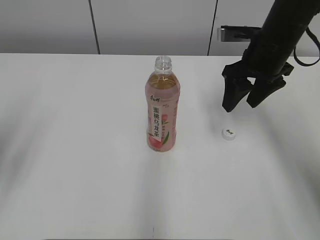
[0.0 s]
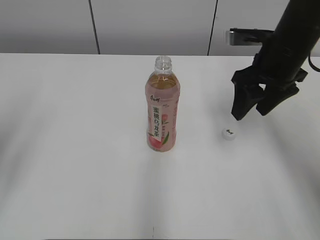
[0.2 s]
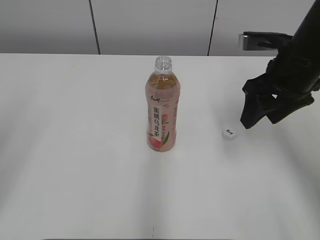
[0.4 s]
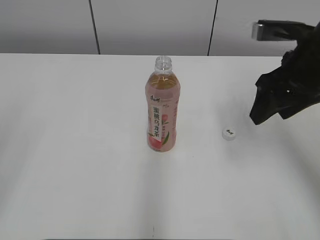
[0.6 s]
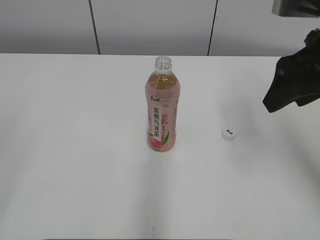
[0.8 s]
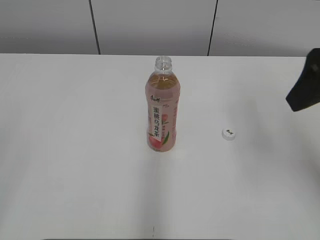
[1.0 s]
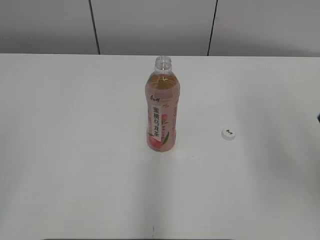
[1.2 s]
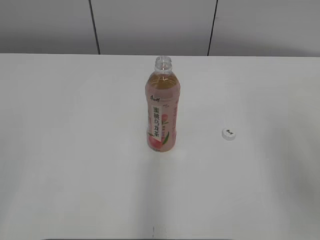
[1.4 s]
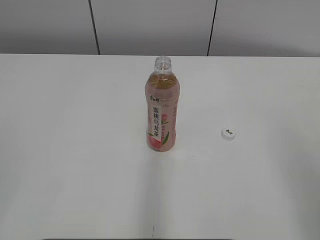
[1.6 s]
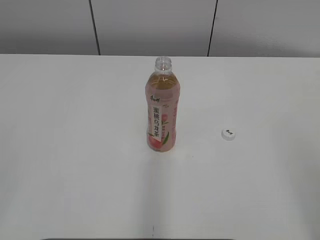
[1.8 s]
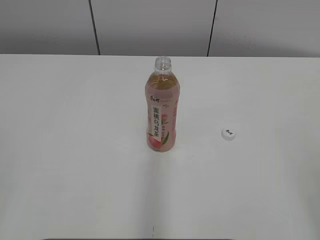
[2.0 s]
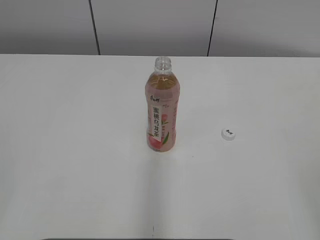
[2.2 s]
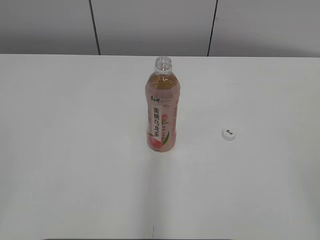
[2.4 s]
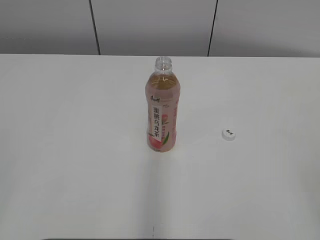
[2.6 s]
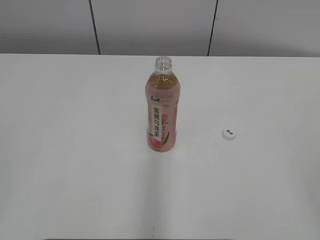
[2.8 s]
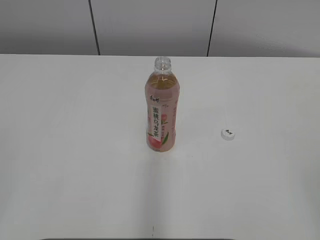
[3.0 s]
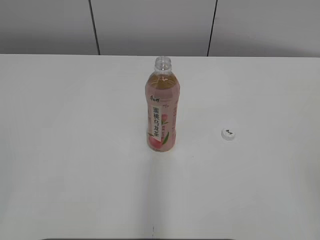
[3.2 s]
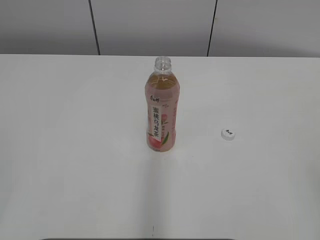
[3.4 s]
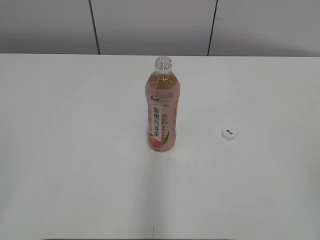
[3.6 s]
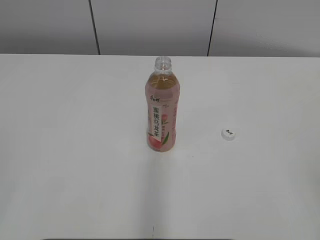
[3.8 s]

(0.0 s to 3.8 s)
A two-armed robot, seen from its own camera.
0.0 s - 1.2 s: The right gripper travels backward and upward by roughly 20 cm.
1.2 s - 2.6 s: The right gripper heads backward, covering some 20 cm.

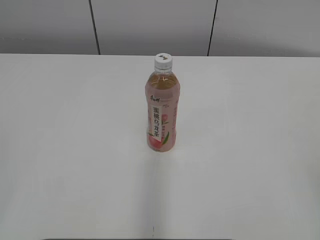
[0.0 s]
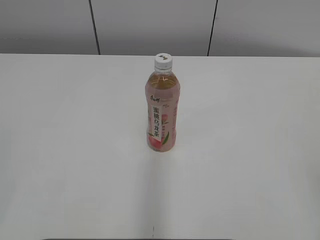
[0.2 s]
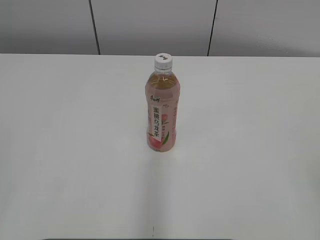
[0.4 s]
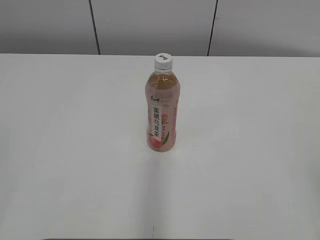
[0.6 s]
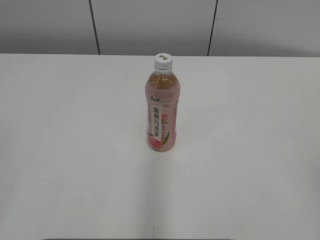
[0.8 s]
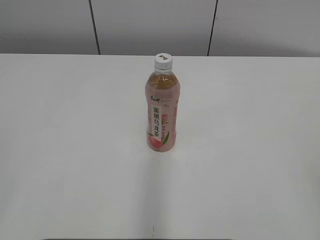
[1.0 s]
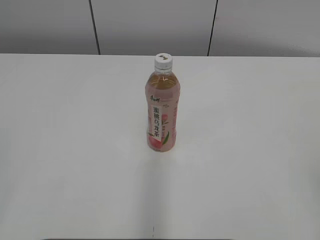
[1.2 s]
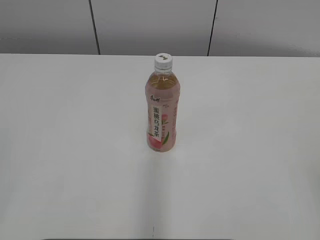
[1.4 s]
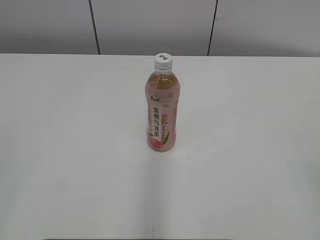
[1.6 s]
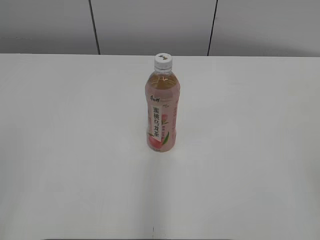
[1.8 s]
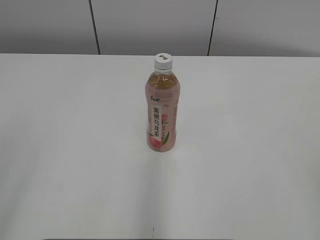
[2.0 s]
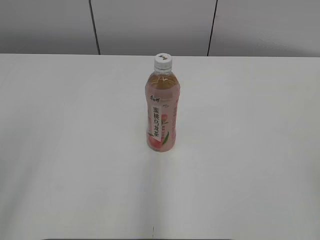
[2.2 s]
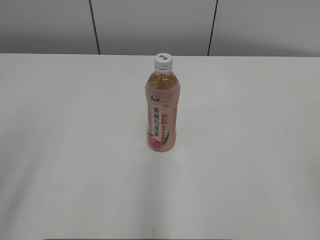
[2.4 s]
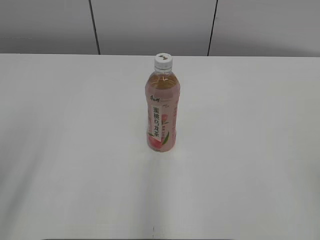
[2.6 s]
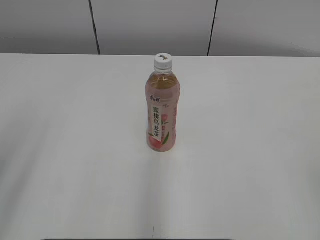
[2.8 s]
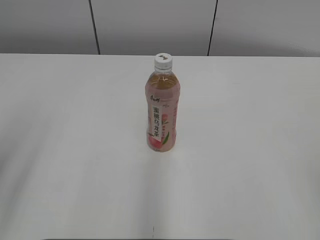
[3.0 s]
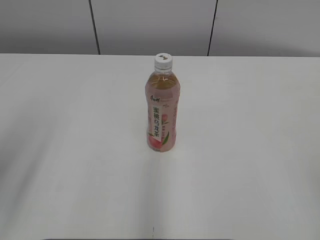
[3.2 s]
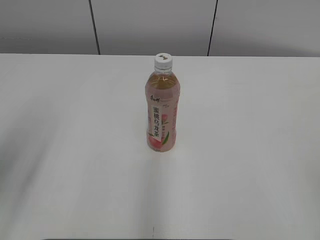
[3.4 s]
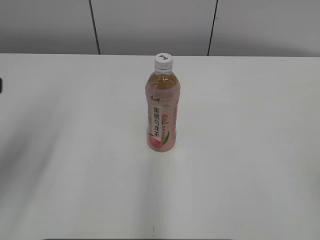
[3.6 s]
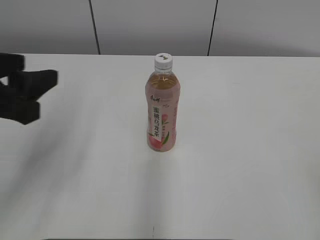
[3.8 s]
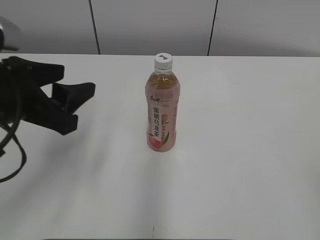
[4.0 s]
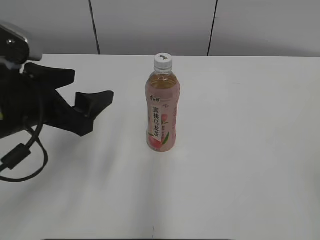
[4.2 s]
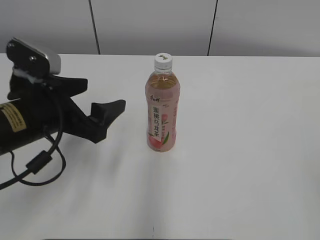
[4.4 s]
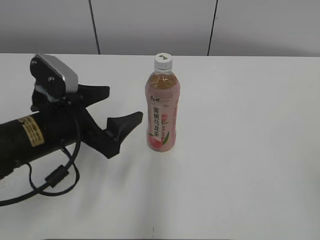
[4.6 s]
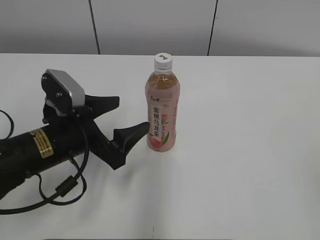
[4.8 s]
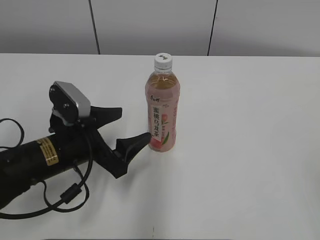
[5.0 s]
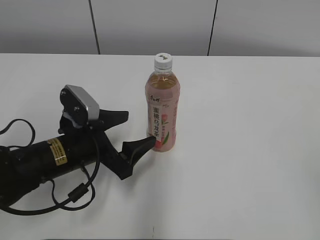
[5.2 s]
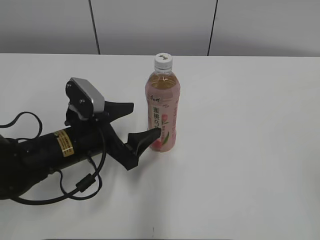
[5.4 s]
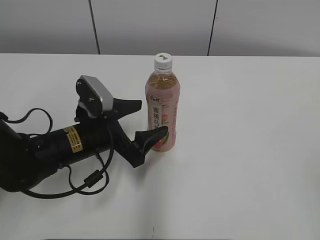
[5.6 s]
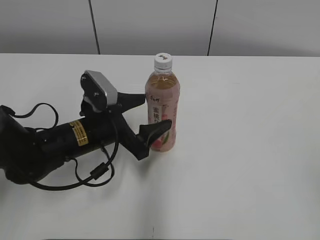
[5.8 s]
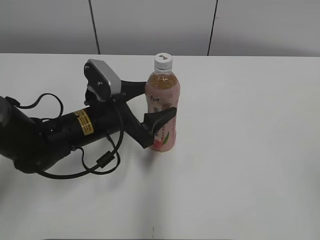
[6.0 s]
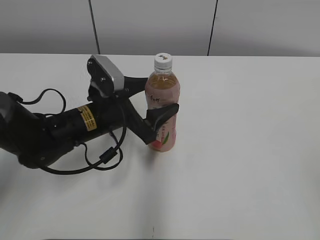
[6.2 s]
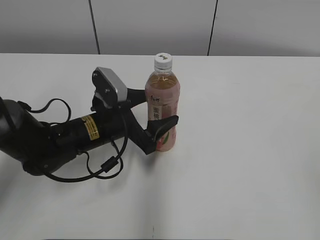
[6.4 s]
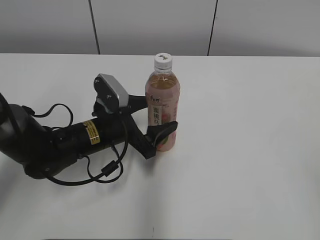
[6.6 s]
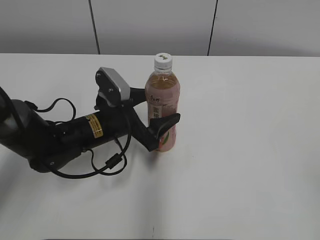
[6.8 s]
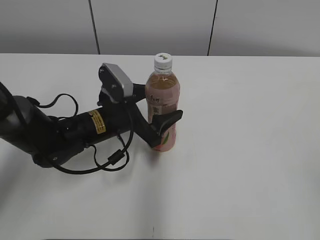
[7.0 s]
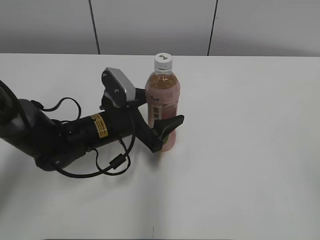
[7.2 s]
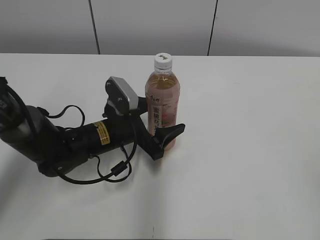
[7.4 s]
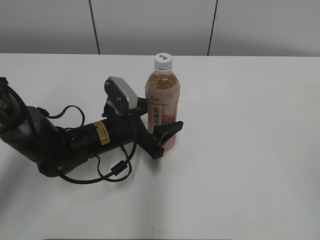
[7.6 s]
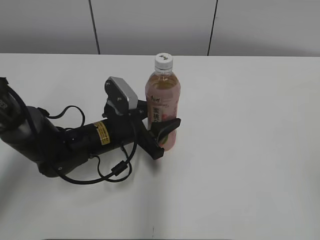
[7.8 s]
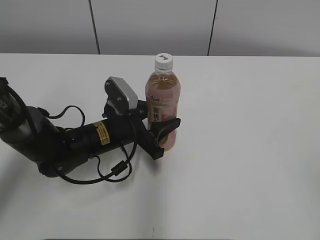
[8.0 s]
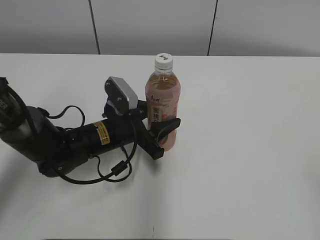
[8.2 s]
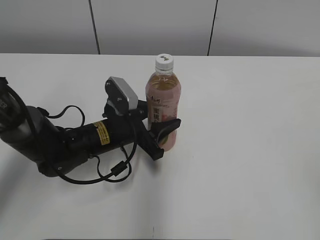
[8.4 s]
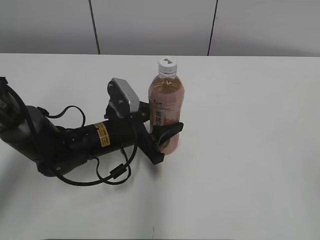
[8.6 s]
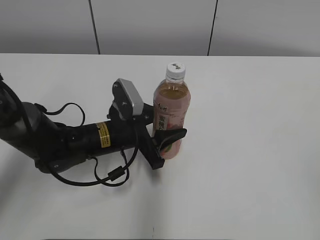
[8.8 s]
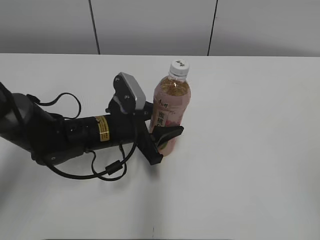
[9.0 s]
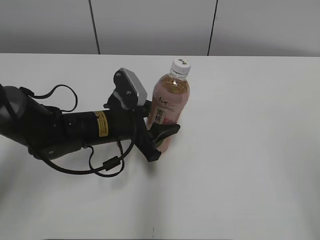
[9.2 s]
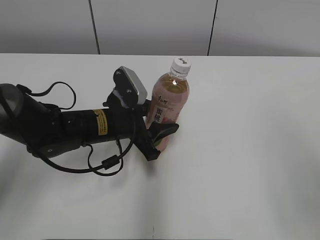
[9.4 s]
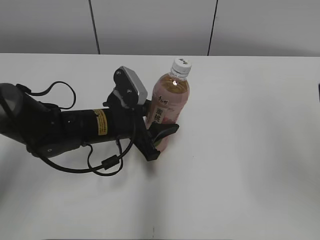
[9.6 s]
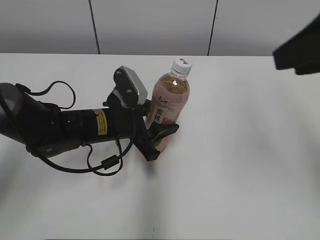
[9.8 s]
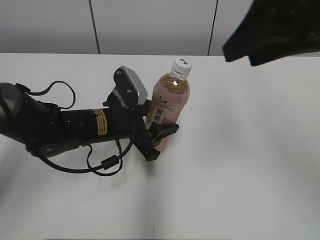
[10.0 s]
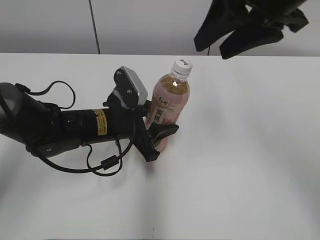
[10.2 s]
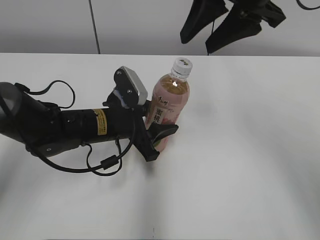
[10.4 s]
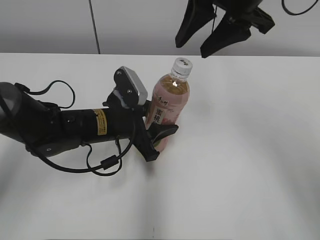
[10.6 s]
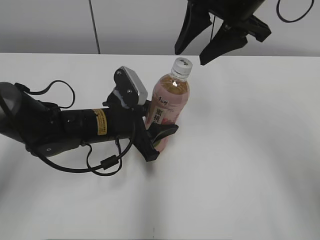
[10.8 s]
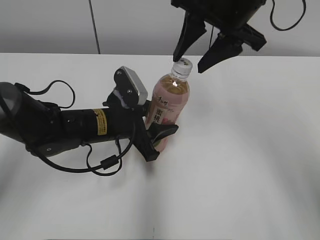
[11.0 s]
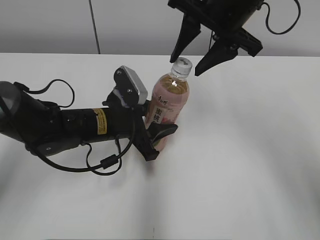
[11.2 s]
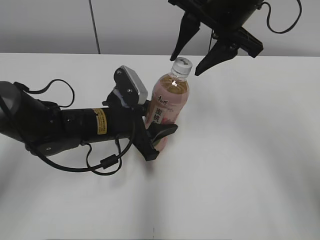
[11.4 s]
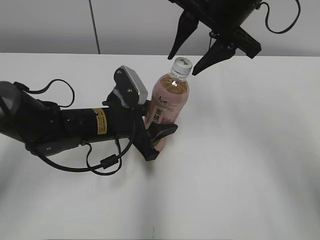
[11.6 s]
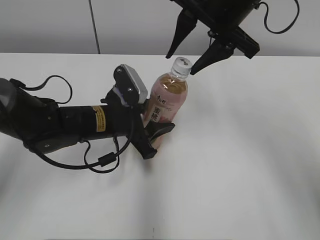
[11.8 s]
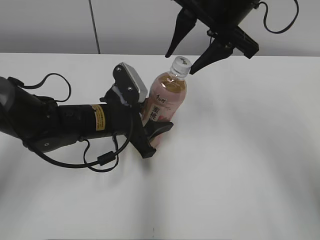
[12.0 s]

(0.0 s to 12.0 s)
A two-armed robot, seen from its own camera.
Step, 0.0 s - 8.6 s: Grab the Peach Oolong Tea with the left hand.
3.0 s - 4.4 s: The left gripper is displaced forward, to the right and downward by about 20 cm, and opens its fingers.
4.4 s - 6.0 s: The left gripper is displaced downward, to the right and forward by approximately 10 cm.
6.0 s - 7.6 s: The grippers make only small movements.
7.6 s - 9.0 s: The left gripper closes up.
9.0 s - 10.4 s: The right gripper is displaced forward and to the left by some 35 cm.
10.4 s - 12.0 s: The right gripper ends up about 5 cm from where it was.

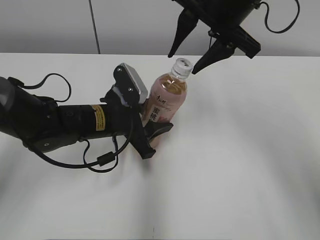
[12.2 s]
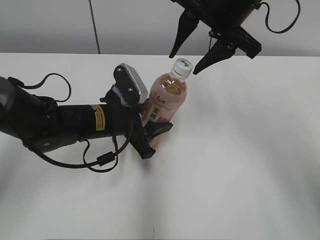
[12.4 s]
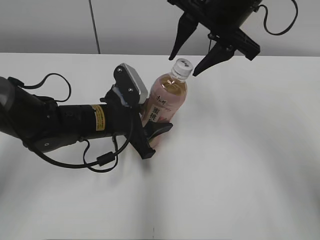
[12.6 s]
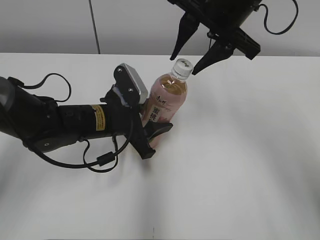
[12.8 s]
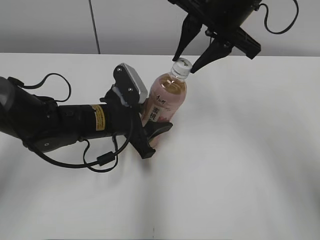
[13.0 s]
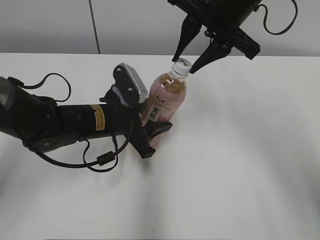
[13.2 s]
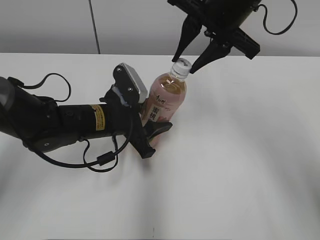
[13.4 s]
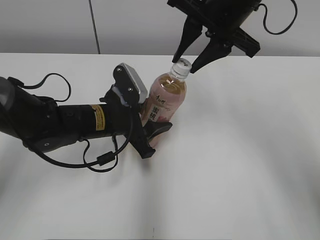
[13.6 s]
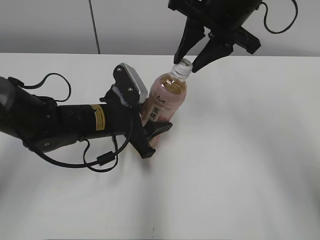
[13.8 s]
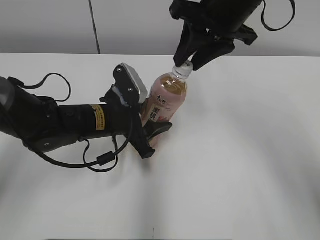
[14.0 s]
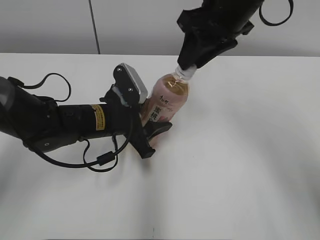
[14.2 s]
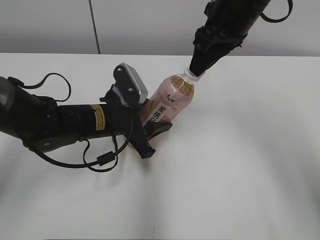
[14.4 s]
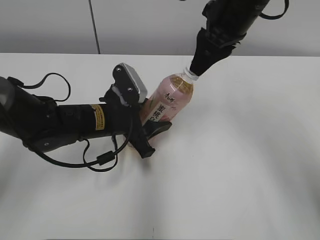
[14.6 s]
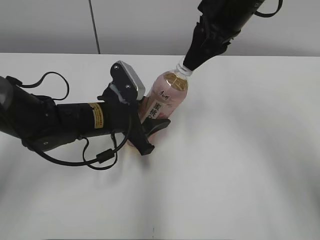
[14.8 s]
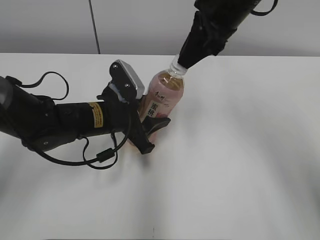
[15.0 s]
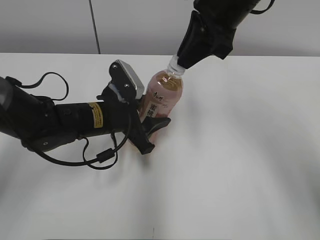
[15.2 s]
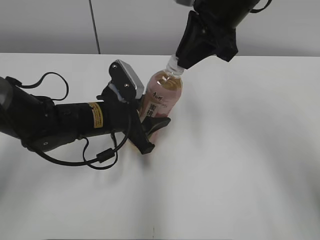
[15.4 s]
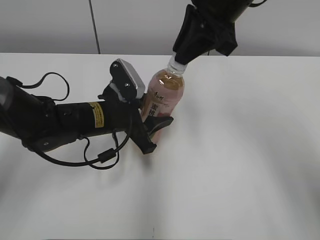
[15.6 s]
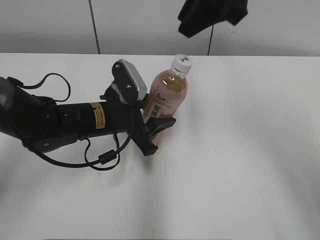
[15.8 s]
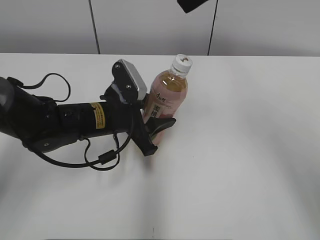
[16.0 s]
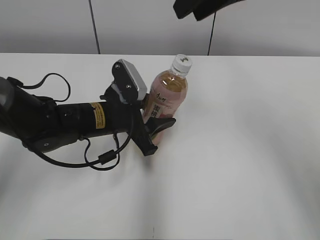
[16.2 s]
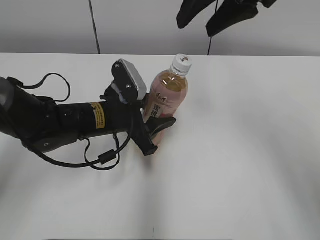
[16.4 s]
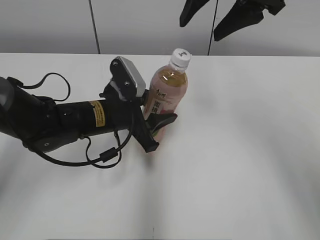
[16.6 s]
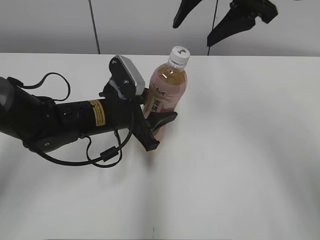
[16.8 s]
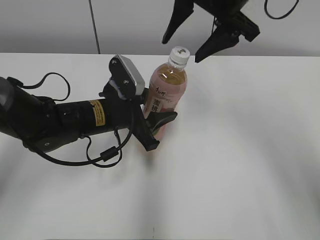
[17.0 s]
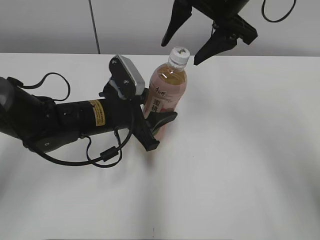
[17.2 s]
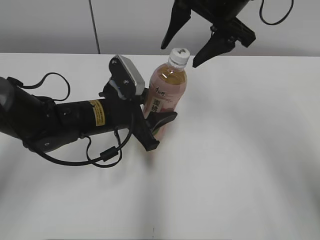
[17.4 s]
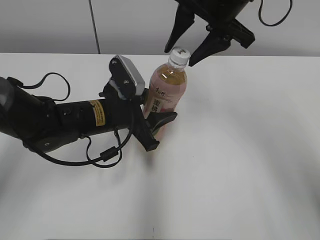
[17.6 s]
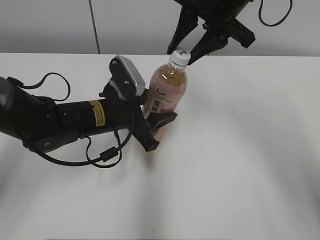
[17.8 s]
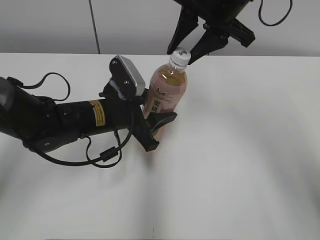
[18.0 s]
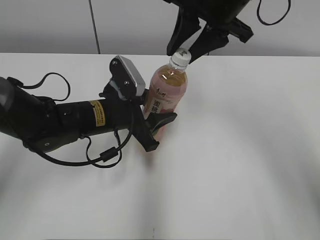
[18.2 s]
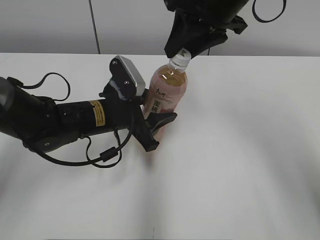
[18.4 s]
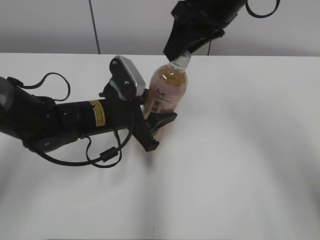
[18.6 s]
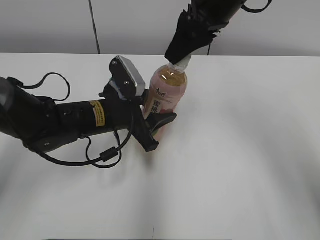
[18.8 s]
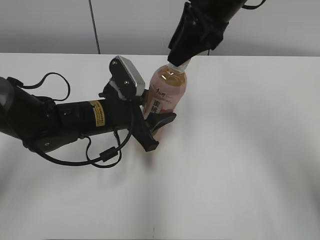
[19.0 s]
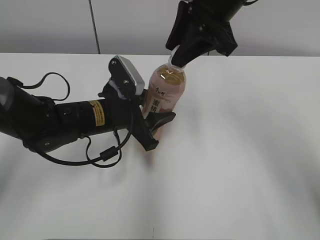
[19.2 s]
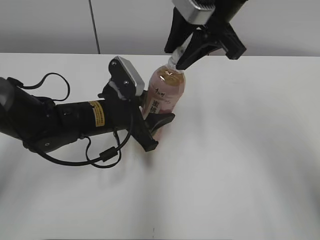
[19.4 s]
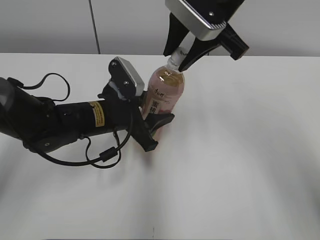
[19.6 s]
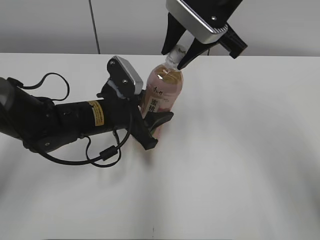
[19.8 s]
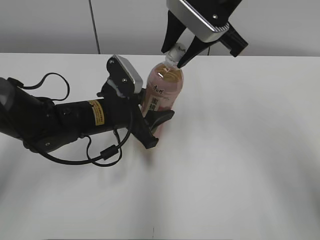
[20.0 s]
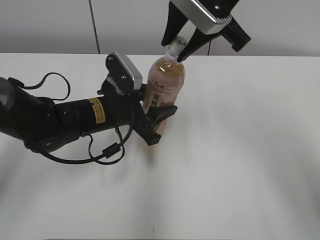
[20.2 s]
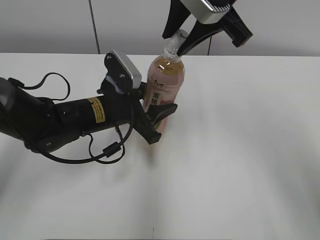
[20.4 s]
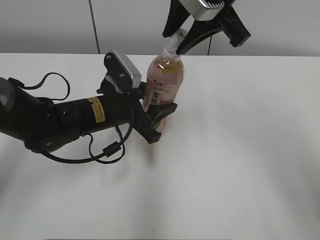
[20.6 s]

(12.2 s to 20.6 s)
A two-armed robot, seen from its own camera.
12.2 s - 13.6 s: The right gripper closes up.
15.0 s - 16.4 s: The right gripper is displaced upward by roughly 5 cm, and opens its fingers.
16.4 s - 17.8 s: The right gripper moves approximately 5 cm, and closes.
